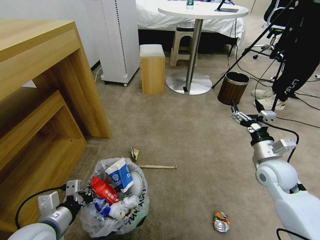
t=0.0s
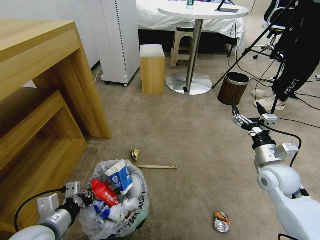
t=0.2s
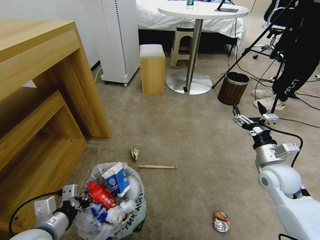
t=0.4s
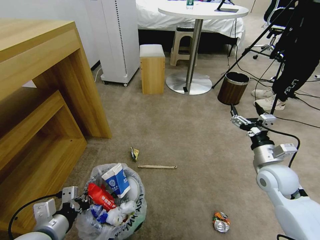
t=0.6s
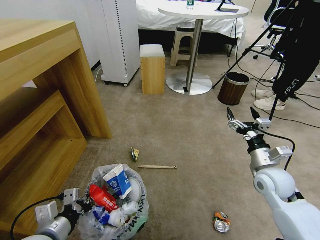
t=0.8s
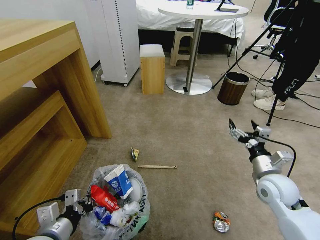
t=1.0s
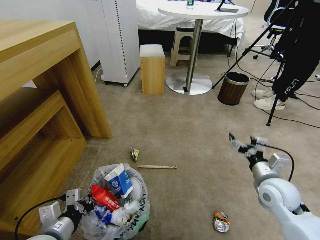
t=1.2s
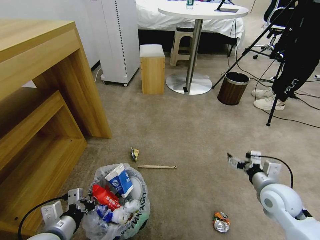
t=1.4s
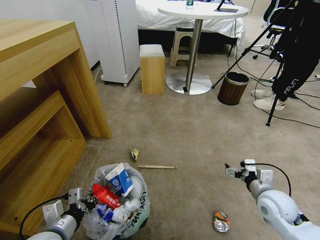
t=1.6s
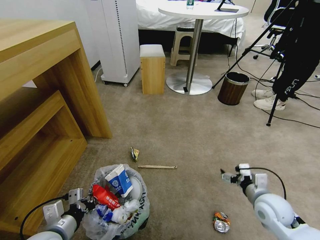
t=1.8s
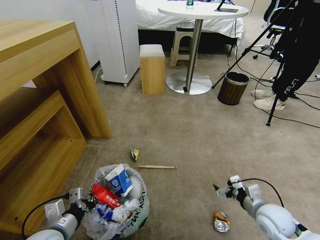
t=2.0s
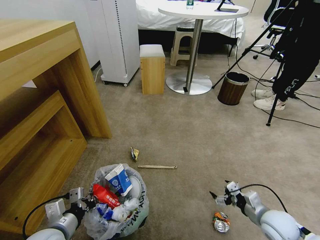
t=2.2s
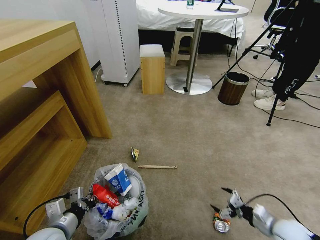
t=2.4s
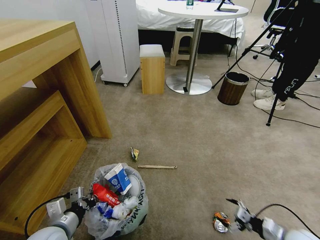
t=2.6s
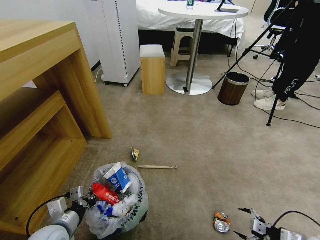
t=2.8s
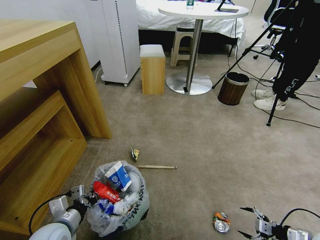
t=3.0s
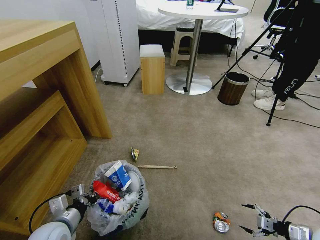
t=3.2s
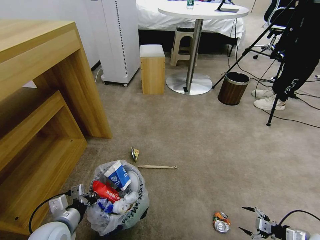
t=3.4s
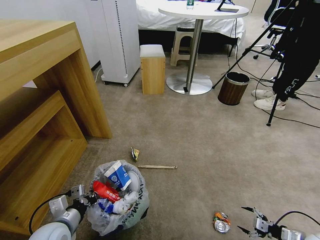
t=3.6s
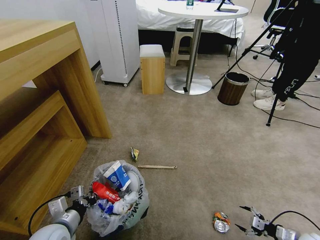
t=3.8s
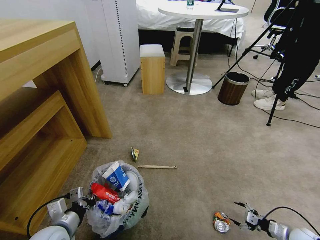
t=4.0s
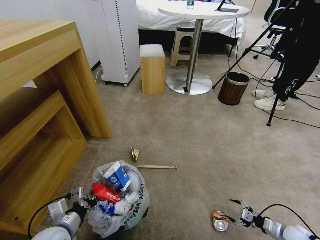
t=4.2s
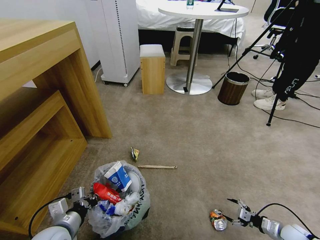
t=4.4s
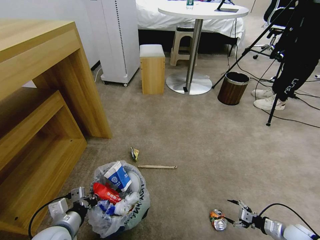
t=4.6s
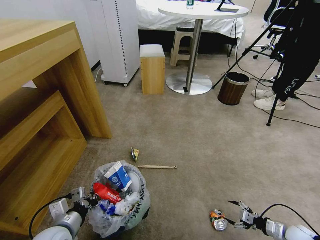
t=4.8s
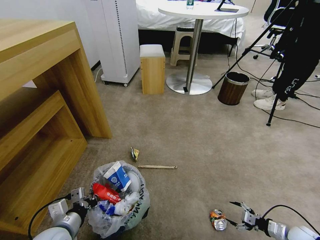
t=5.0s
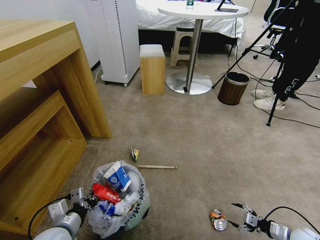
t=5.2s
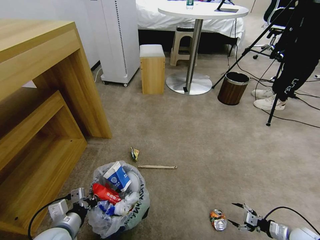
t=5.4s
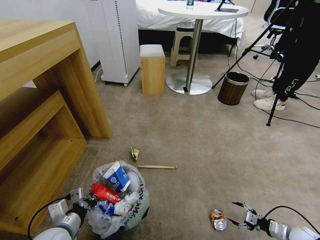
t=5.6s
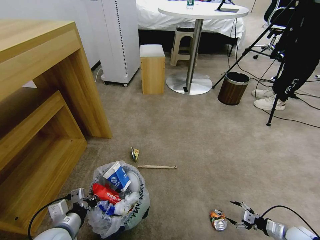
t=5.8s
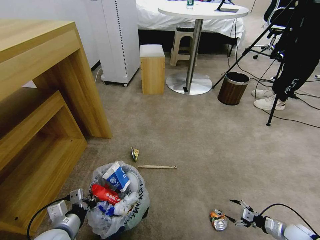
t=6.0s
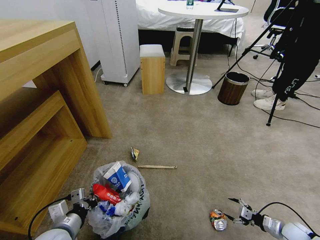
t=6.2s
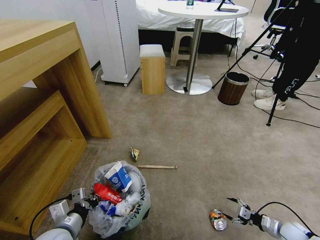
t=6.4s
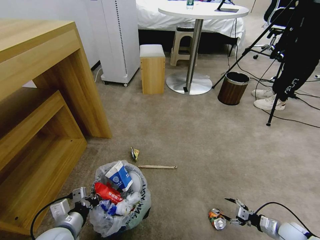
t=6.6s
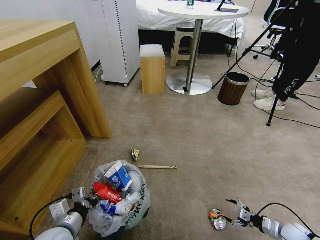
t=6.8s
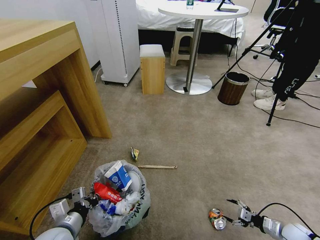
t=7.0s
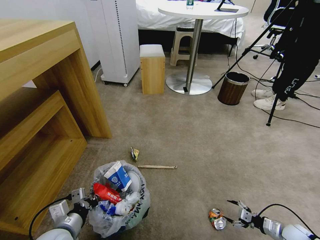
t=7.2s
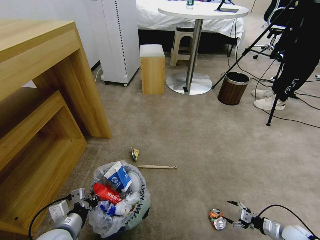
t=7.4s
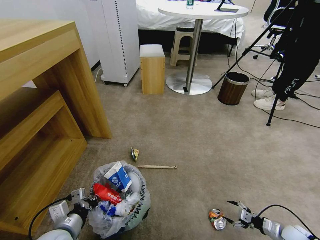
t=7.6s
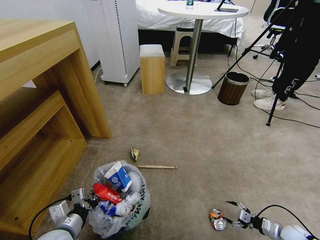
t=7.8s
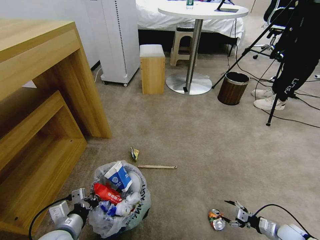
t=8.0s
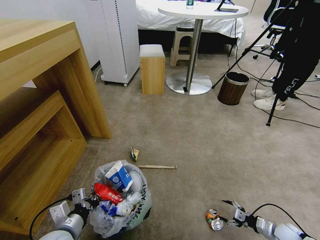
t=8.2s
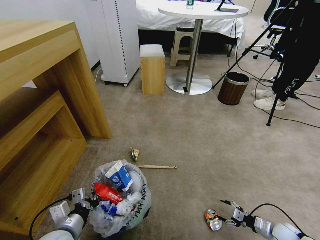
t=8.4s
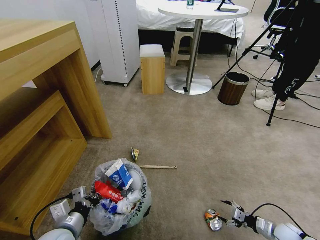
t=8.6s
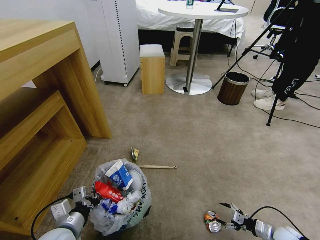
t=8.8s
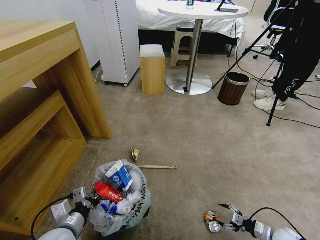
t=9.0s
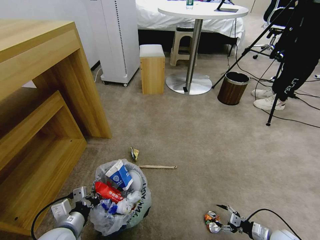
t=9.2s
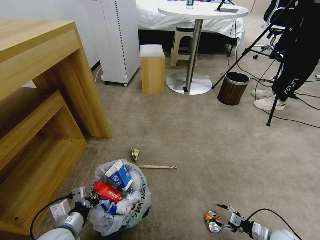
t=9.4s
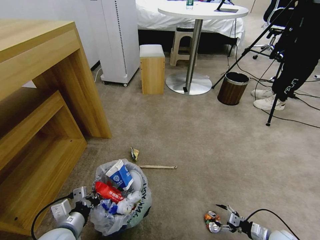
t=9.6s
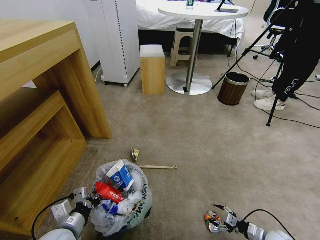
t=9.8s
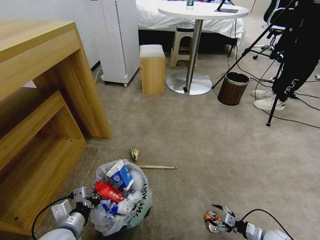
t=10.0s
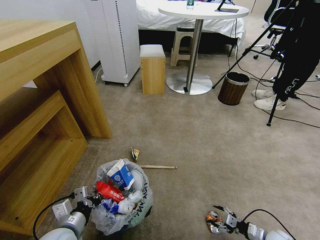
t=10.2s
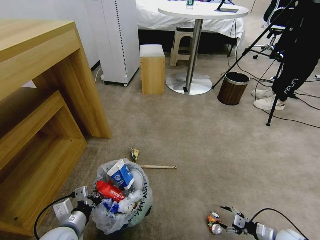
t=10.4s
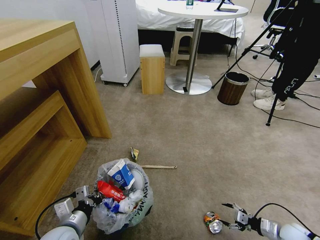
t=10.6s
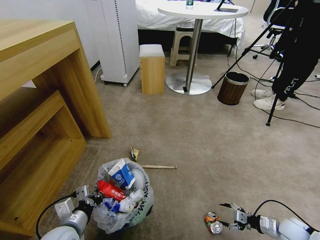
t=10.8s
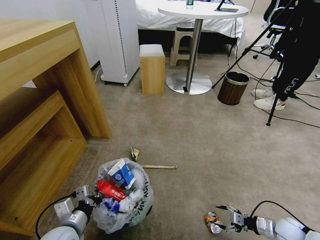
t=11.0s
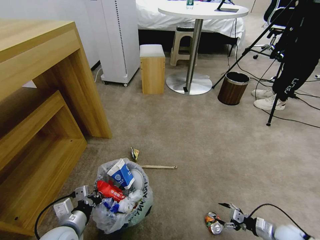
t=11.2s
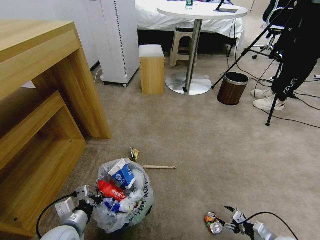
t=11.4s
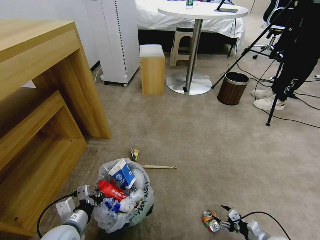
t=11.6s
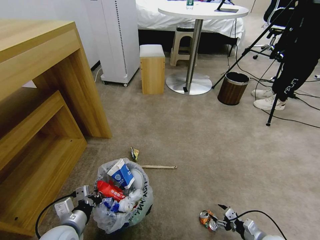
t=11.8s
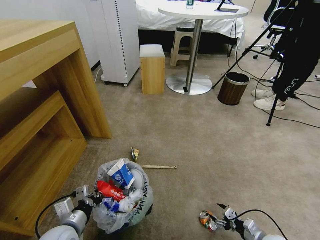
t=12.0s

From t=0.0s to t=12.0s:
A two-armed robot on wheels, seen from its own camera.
Task of the whole recording: Pick up the trash bin and place the garbage on the floor into it.
From t=0.0s to t=1.6s: The right gripper heads backward and downward, covering approximately 10 cm.
From t=1.6s to t=3.0s: The right gripper moves to the right, downward and backward, about 25 cm.
From t=3.0s to t=4.4s: The right gripper is displaced downward by roughly 10 cm.
From t=4.4s to t=9.0s: The grippers stay close to where they were, moving slightly.
From t=9.0s to t=10.4s: There are only small adjustments of the grippers.
From t=10.4s to t=12.0s: The right gripper goes approximately 5 cm to the left.

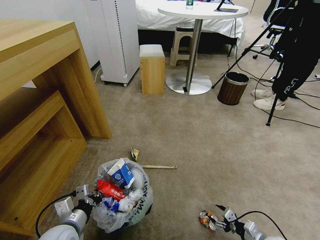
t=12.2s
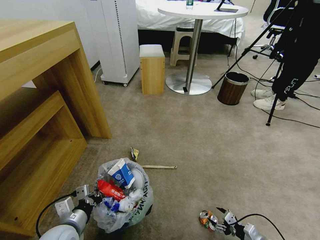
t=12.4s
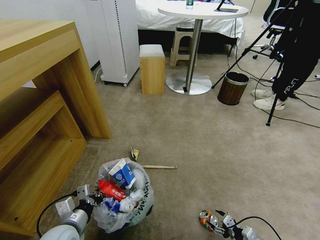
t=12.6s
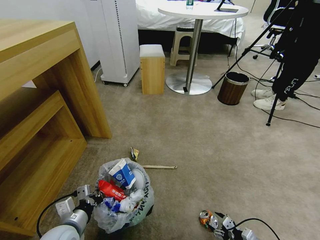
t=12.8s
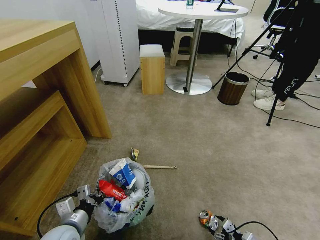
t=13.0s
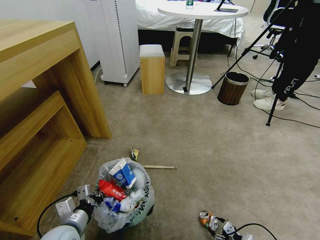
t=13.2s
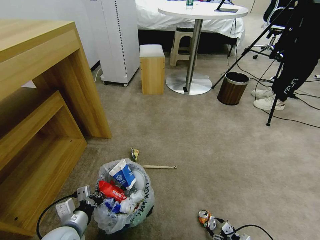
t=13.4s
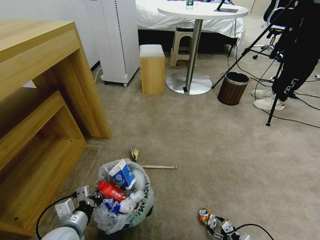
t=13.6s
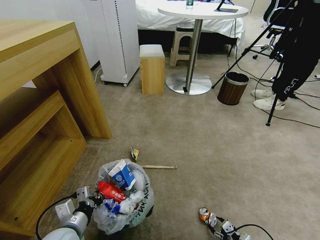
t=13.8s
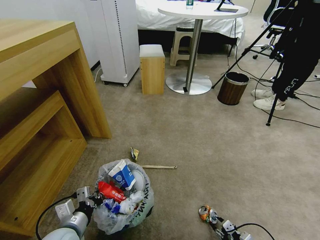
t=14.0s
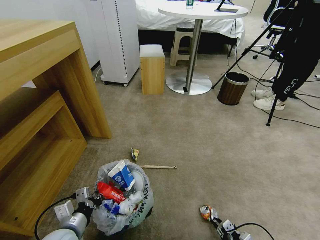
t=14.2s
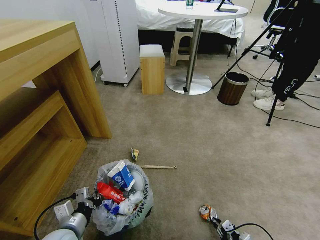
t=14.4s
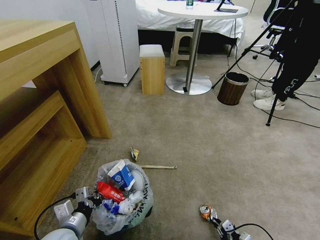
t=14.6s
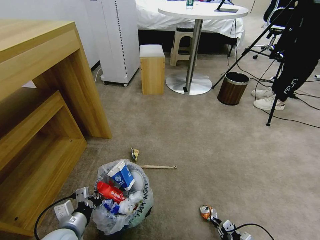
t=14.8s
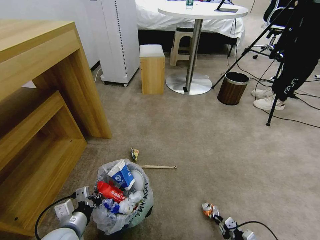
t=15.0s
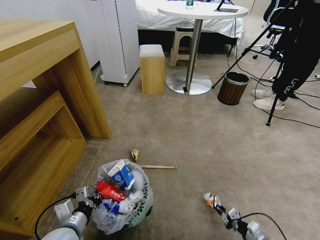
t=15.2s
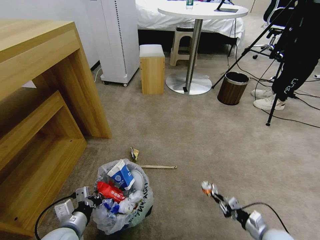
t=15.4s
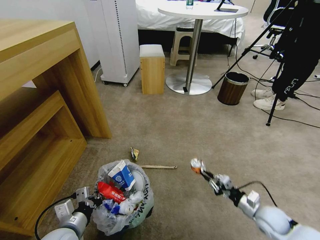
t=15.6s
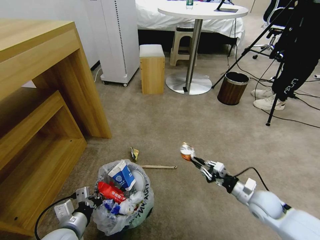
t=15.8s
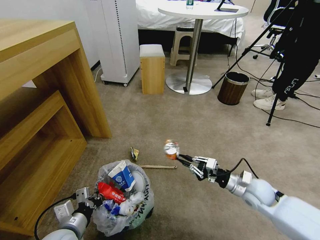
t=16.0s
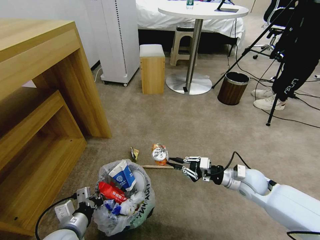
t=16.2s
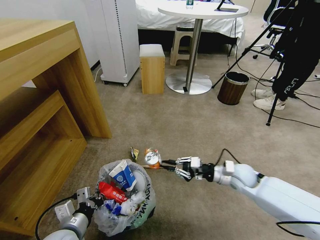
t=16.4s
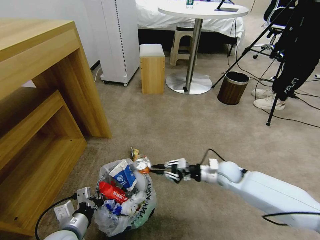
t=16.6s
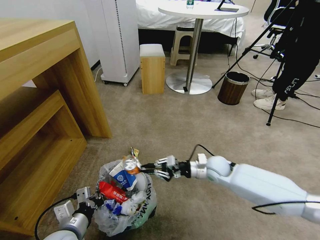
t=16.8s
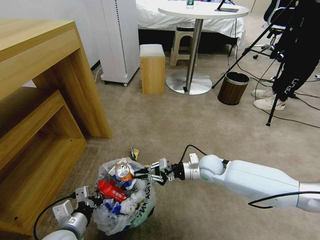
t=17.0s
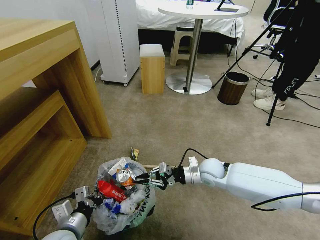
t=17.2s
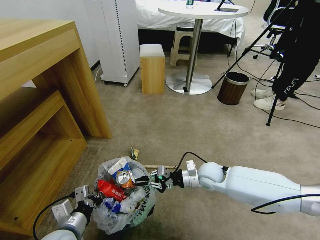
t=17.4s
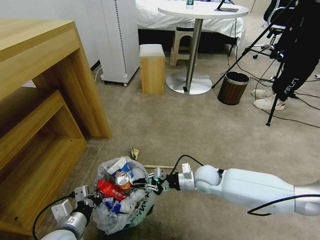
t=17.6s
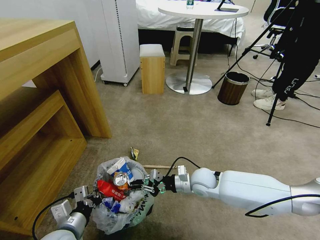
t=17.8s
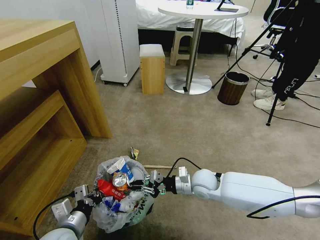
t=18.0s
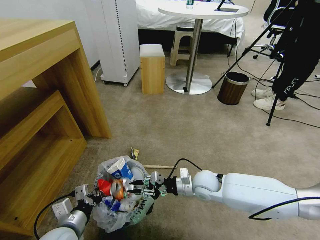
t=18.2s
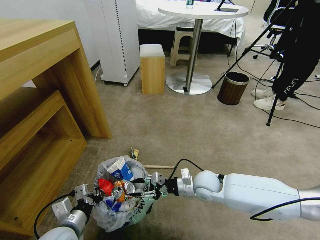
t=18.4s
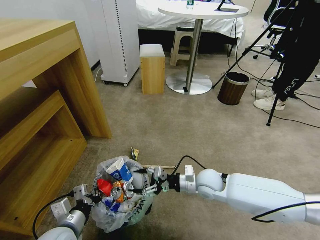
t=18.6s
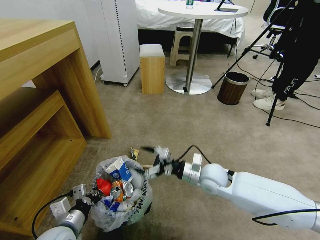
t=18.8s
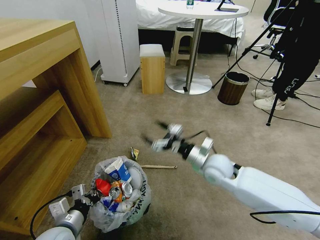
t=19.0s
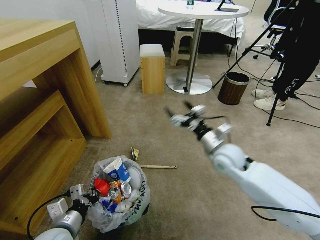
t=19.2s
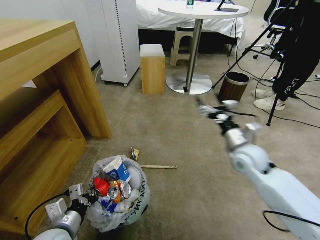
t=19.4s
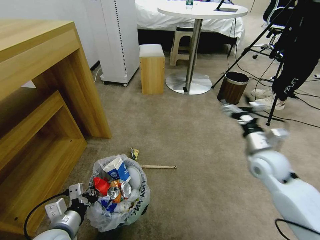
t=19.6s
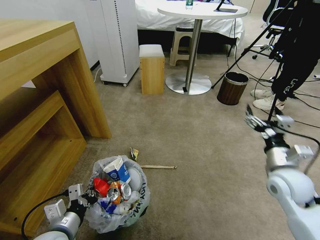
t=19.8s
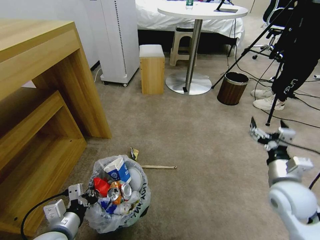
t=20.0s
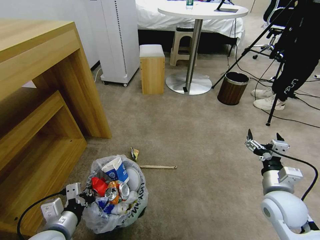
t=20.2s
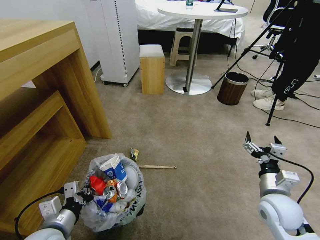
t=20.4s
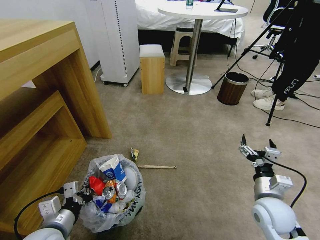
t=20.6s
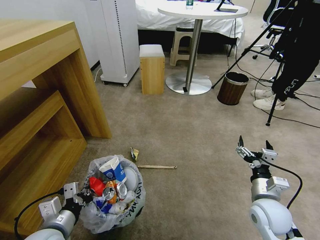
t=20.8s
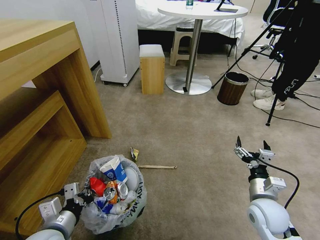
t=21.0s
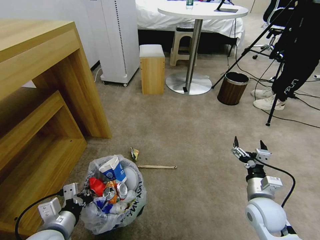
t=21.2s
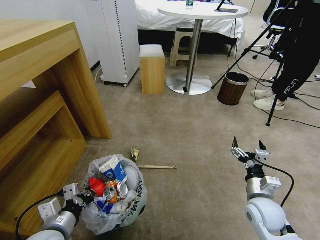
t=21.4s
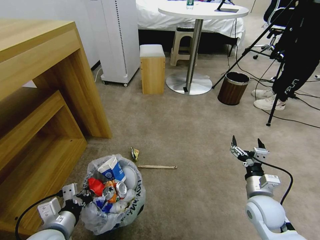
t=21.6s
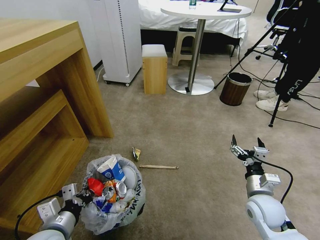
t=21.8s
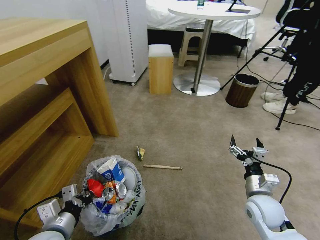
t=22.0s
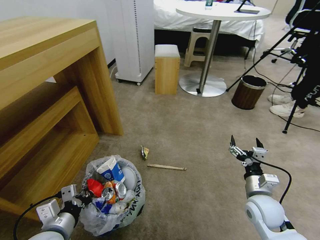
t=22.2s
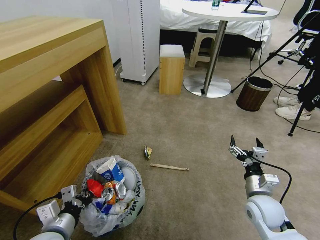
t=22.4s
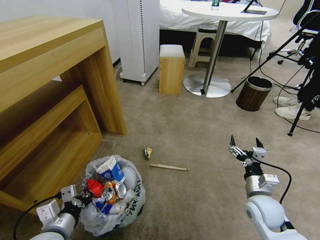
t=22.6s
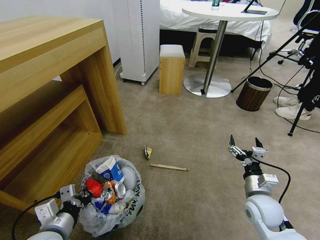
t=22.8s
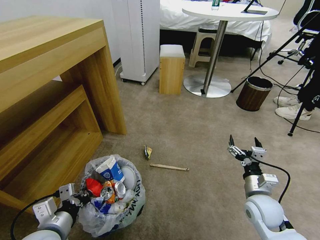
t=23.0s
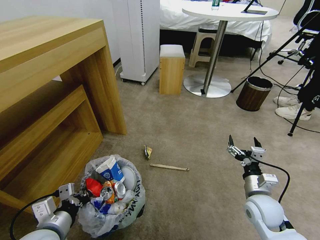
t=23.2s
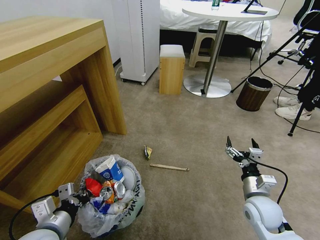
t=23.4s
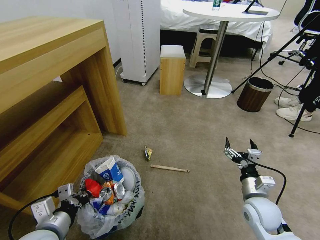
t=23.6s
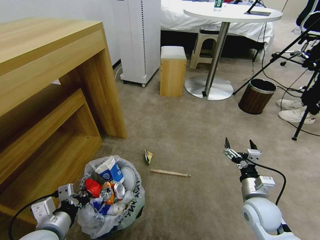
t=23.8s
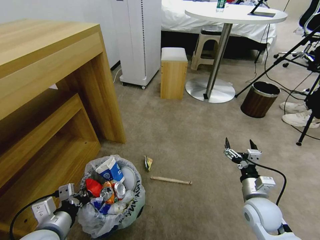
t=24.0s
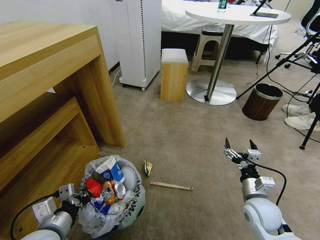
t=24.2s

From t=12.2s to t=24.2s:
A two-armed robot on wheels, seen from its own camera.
Task of the whole recording: Pick up the trash bin and place the garbage on the floor into it.
From t=12.2s to t=13.8s: The right gripper ends up about 5 cm from where it was.
From t=13.8s to t=15.2s: The right gripper closes.
From t=15.2s to t=16.6s: The right gripper heads forward, upward and to the left, covering approximately 30 cm.
From t=16.6s to t=18.2s: The right gripper is displaced to the left by about 10 cm.
From t=18.2s to t=19.8s: The right gripper travels to the right and upward by some 25 cm, and opens its fingers.
From t=19.8s to t=21.2s: The right gripper moves downward, roughly 10 cm.
